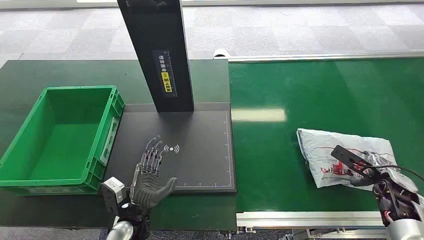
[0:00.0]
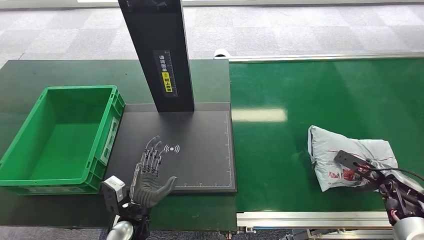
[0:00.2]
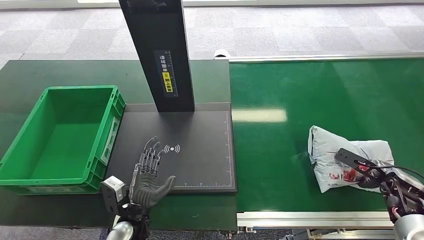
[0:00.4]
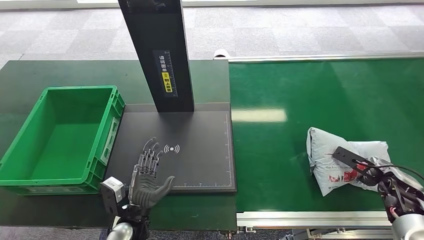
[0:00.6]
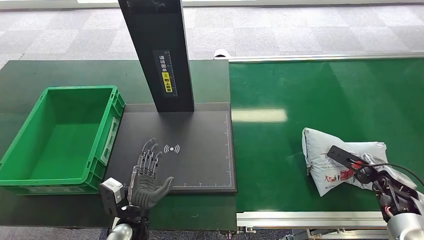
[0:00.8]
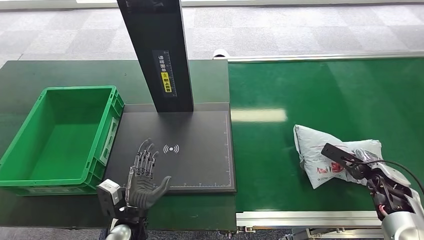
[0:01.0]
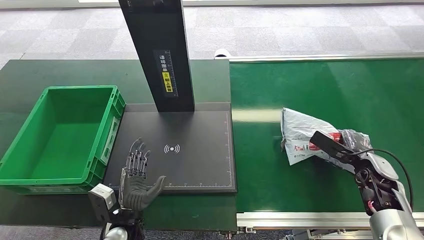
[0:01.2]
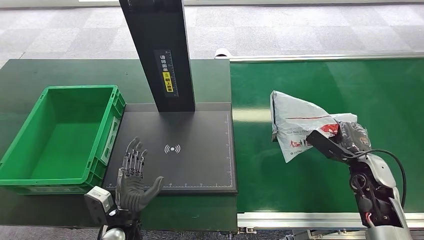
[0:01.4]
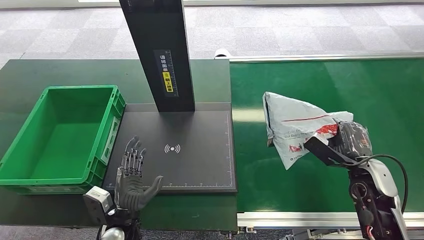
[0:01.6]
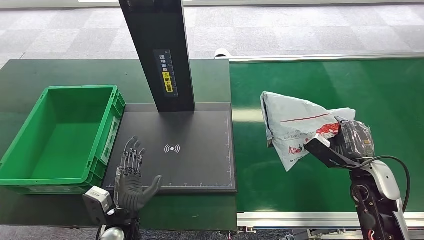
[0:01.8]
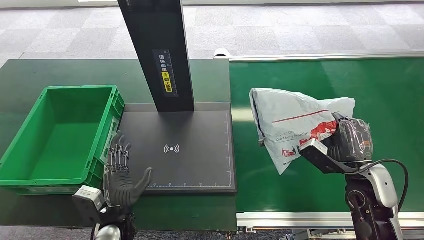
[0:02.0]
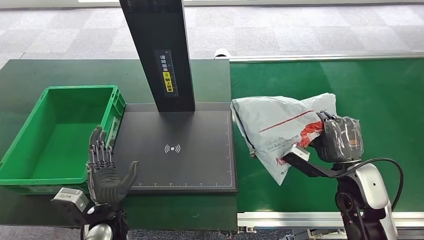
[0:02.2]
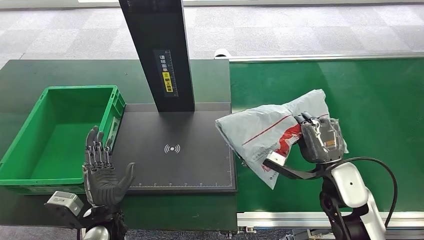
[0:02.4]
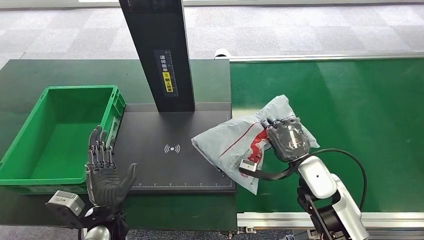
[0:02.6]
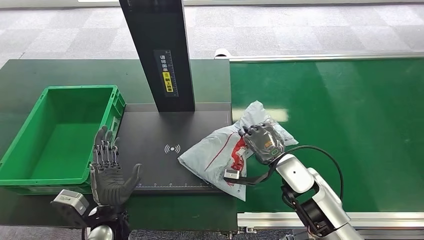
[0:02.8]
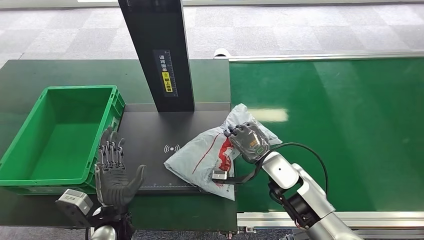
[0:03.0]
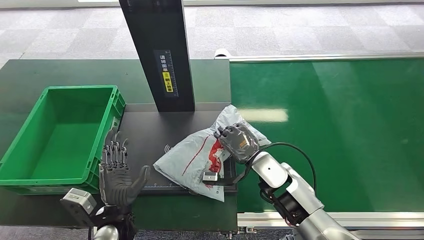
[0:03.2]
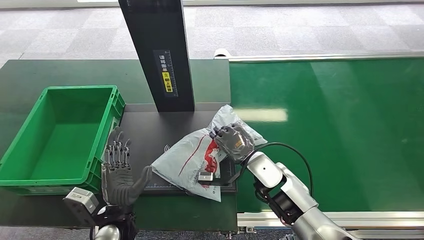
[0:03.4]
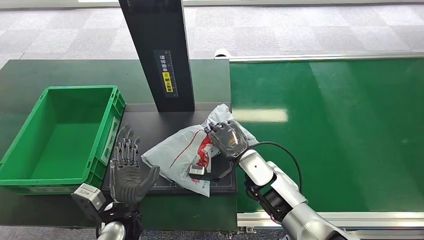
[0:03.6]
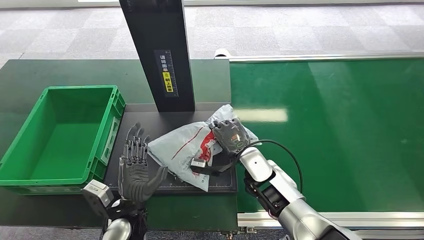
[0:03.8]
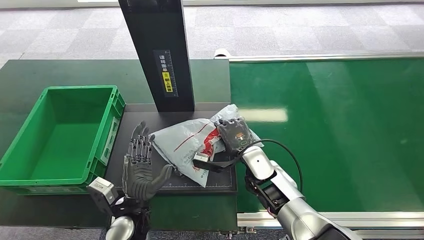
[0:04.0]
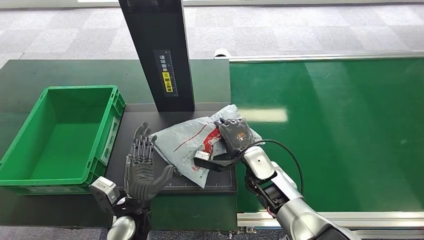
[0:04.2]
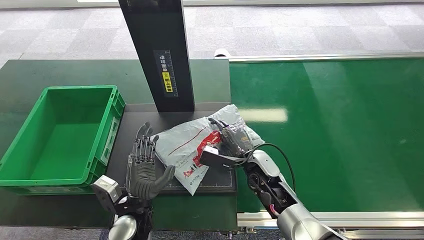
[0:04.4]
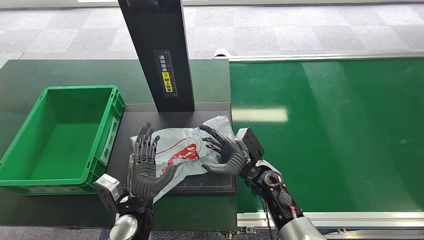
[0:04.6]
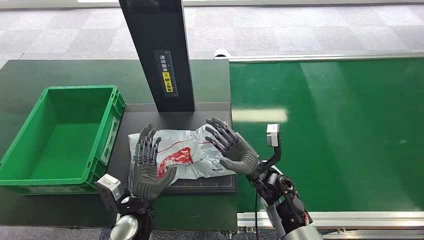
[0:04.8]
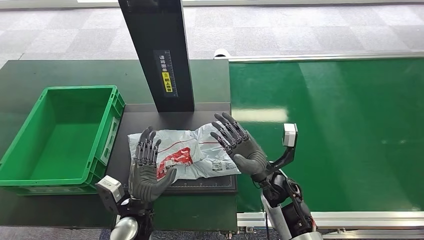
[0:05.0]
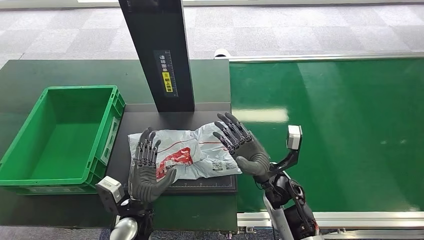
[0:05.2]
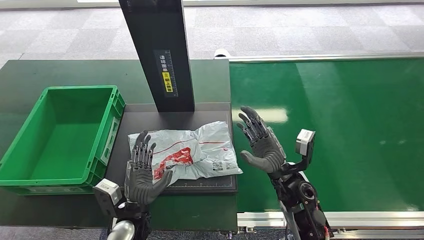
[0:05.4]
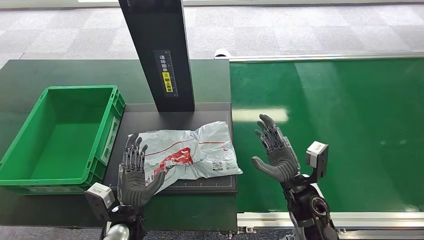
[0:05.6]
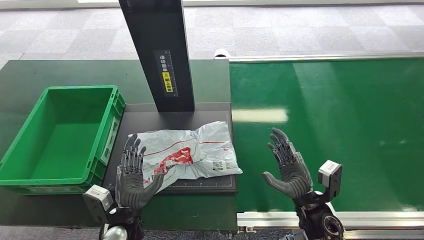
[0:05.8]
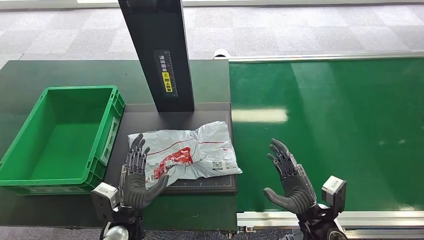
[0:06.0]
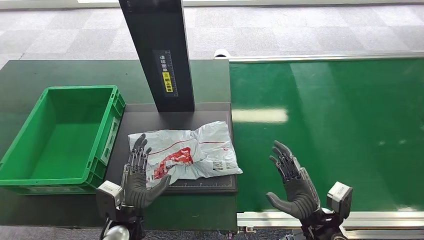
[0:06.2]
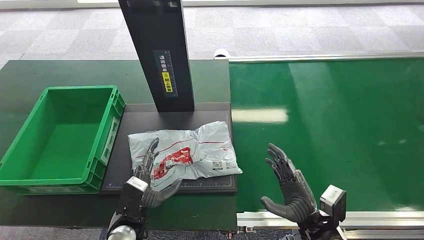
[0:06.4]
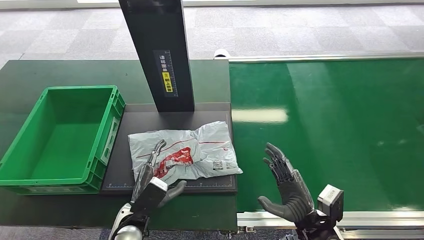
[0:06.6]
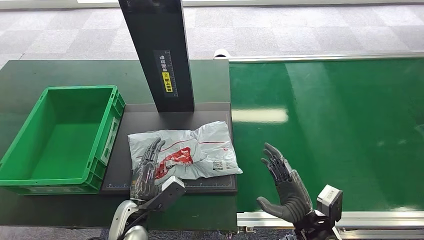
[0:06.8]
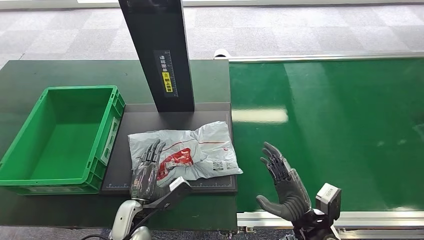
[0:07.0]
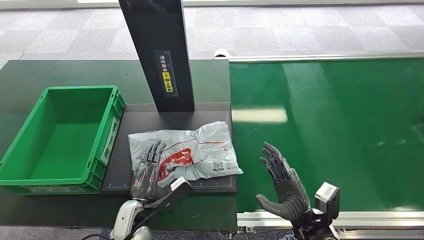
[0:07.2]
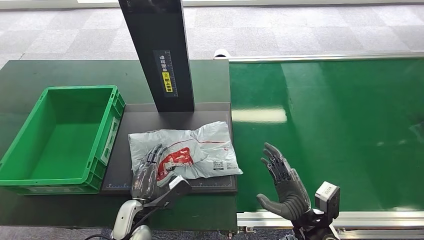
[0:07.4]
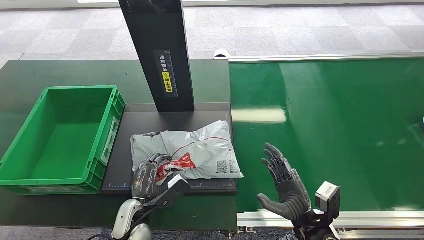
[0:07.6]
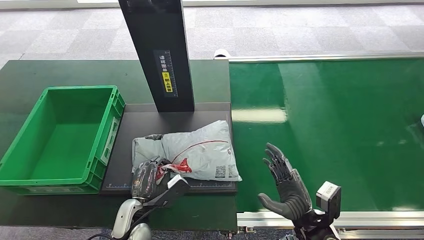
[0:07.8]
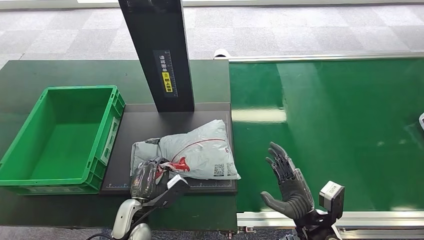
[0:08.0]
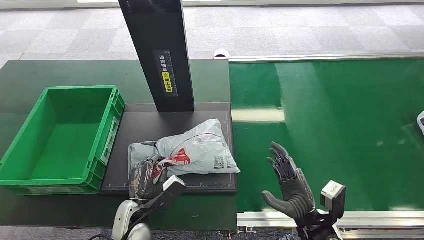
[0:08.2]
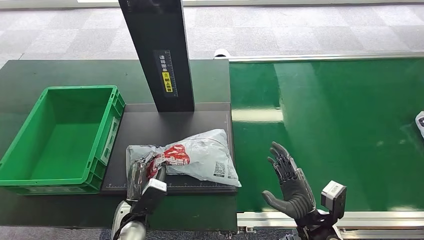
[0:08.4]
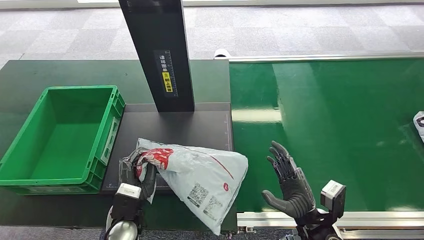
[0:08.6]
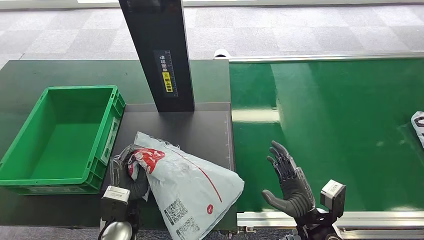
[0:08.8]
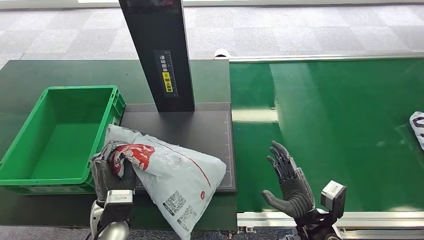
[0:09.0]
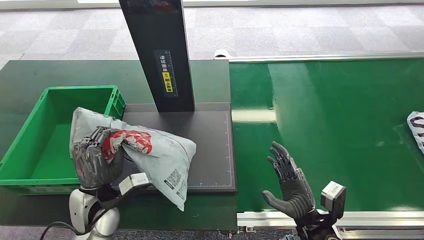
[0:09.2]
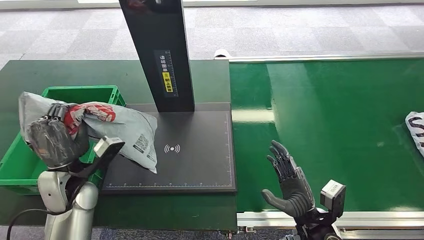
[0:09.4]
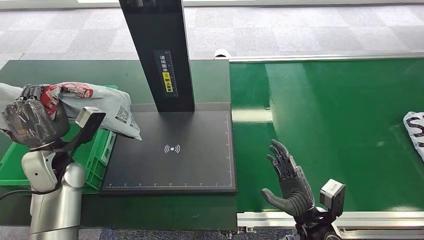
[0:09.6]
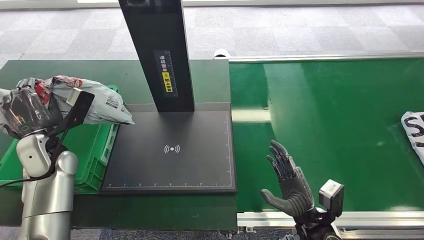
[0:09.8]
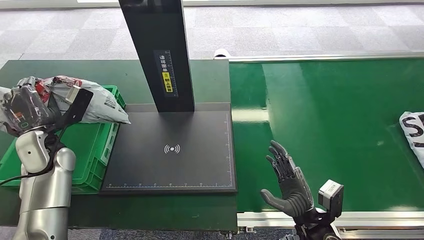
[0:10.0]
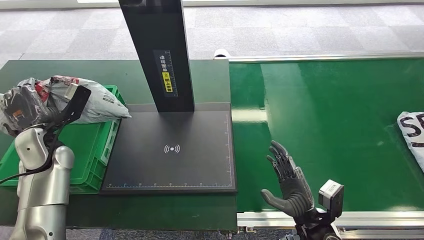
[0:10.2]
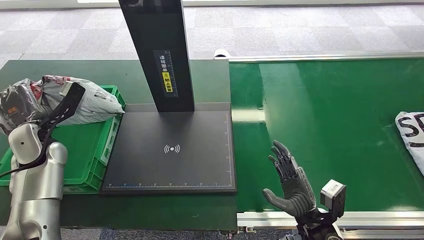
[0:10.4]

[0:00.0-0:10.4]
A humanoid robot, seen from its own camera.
Step, 0:00.0 to 0:01.6: Pick up the package from the conveyor belt.
Step, 0:01.8 to 0:04.8: Place the package onto the inbound machine.
Step, 0:05.0 to 0:09.0: Pick up the package from the inbound machine.
0:03.0 to 0:04.4: The right hand ends up approximately 5 cm from where it was.
0:04.4 to 0:06.0: The right hand goes some 15 cm backward and to the right.
0:07.4 to 0:09.0: The left hand goes some 5 cm upward.

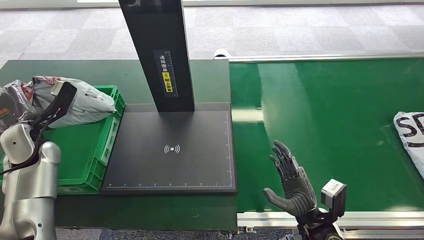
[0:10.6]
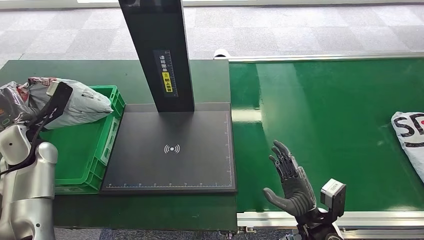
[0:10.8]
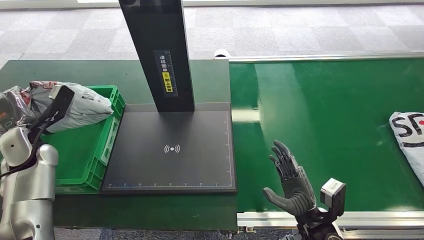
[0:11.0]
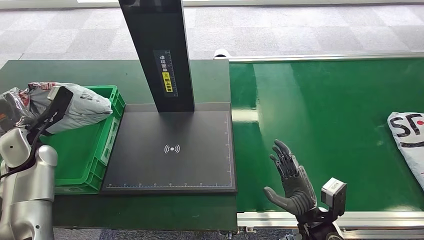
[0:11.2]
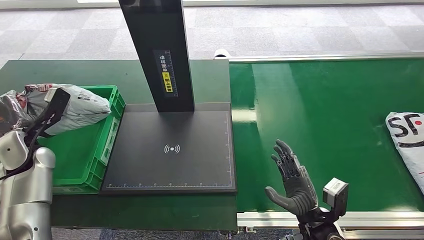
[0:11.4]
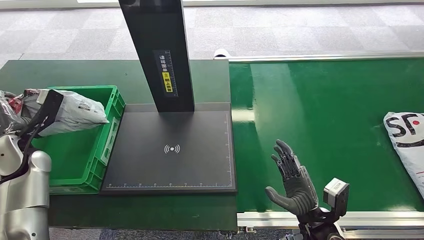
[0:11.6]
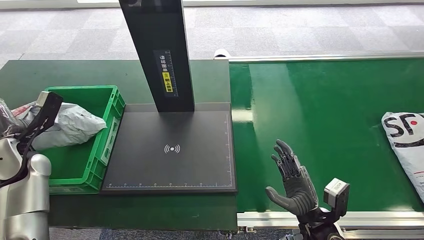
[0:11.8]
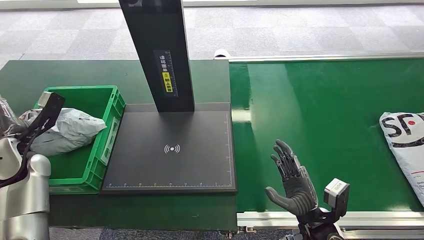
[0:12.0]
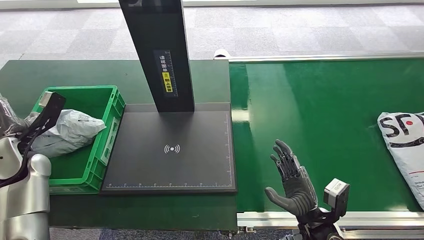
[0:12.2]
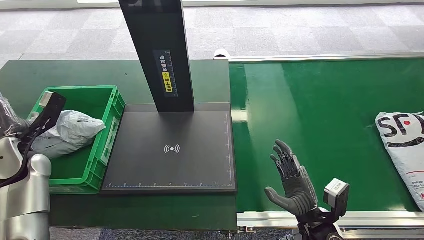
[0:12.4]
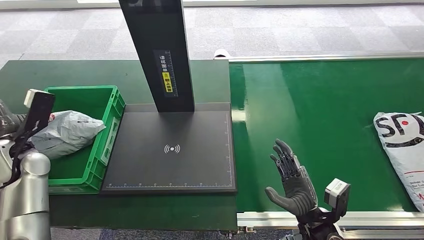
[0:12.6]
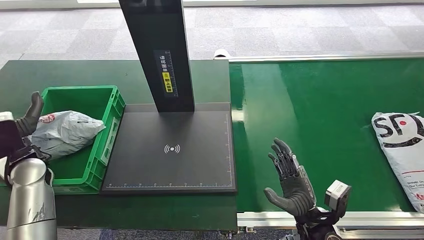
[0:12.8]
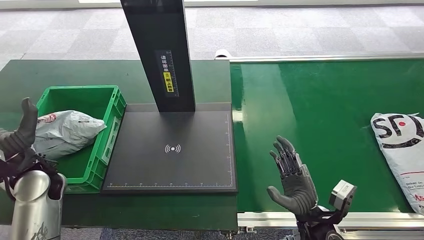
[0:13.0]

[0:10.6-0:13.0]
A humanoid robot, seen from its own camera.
Step, 0:10.6 to 0:13.0: Place the package into the parcel locker.
0:10.6 to 0:11.8: The hands stay close to where they were, moving slightly.
0:11.8 to 0:13.0: The left hand goes roughly 5 cm to the right.
